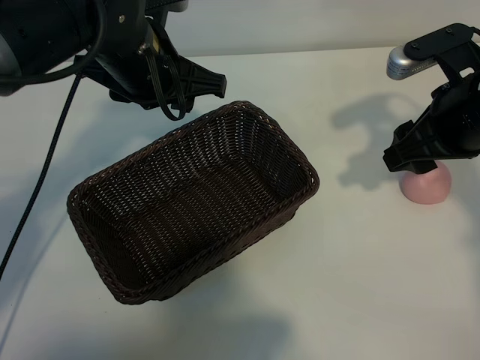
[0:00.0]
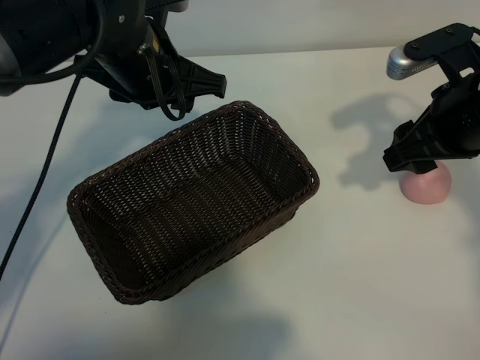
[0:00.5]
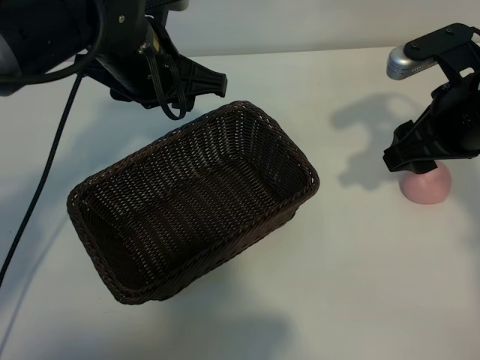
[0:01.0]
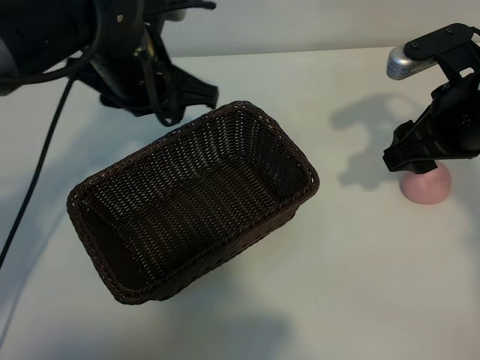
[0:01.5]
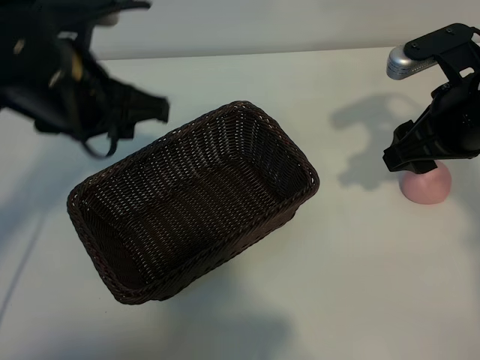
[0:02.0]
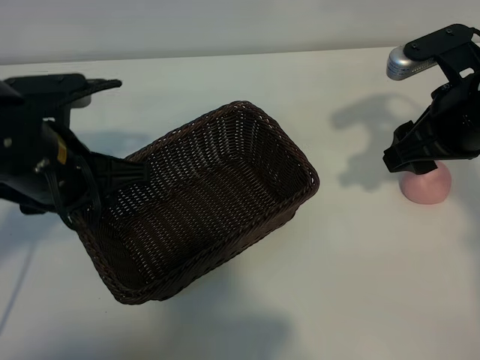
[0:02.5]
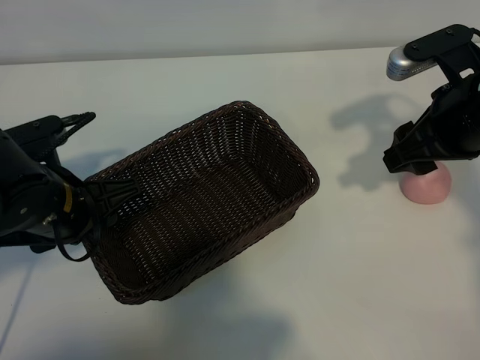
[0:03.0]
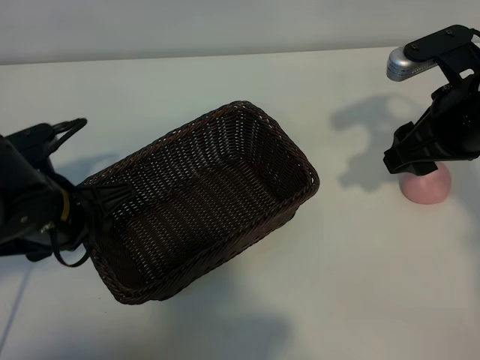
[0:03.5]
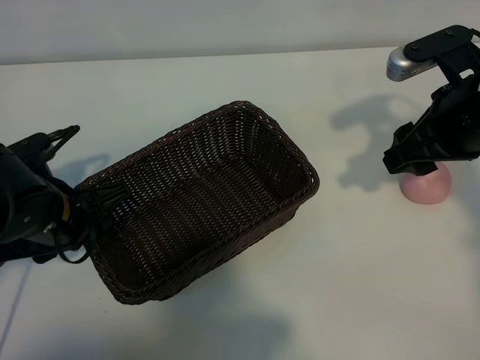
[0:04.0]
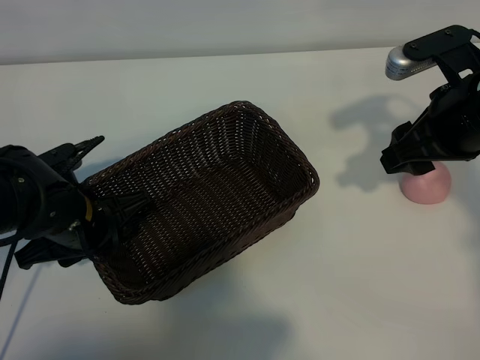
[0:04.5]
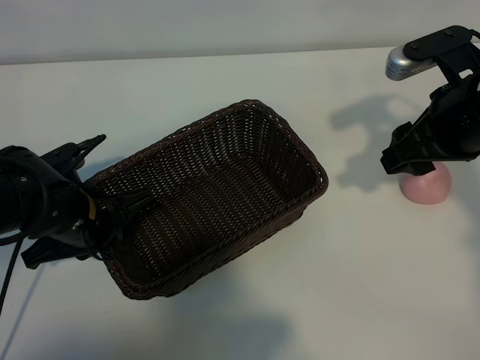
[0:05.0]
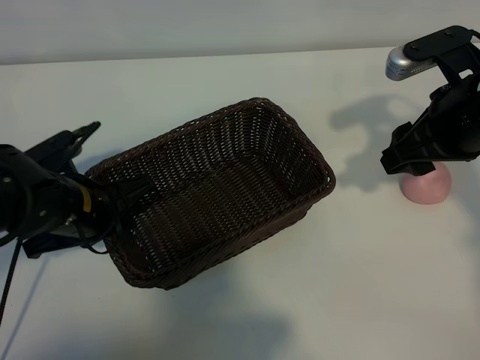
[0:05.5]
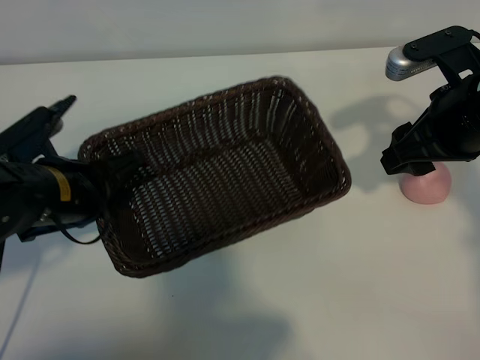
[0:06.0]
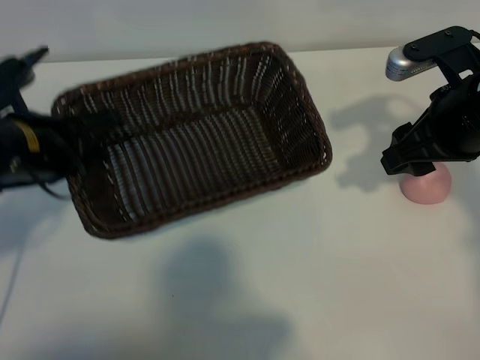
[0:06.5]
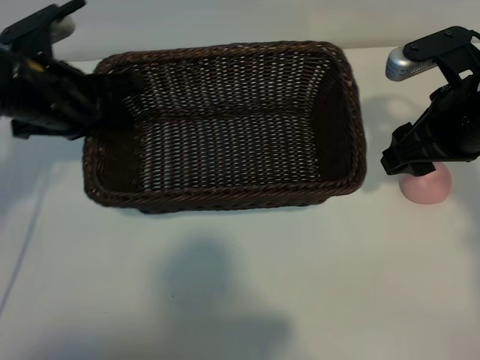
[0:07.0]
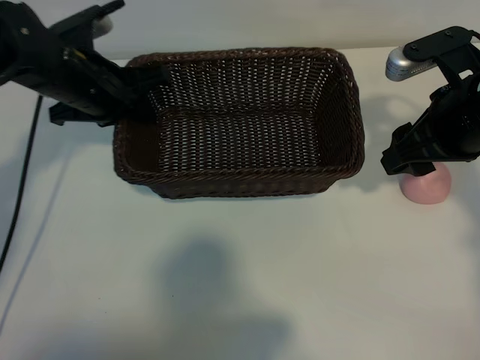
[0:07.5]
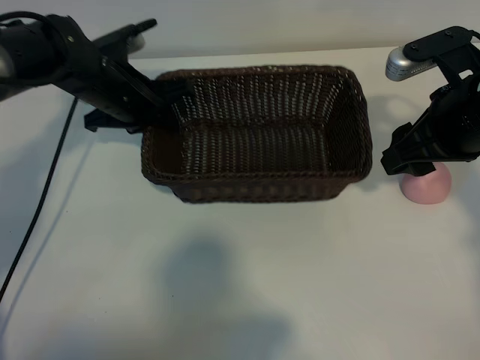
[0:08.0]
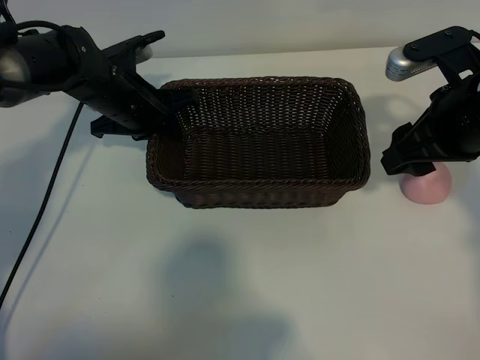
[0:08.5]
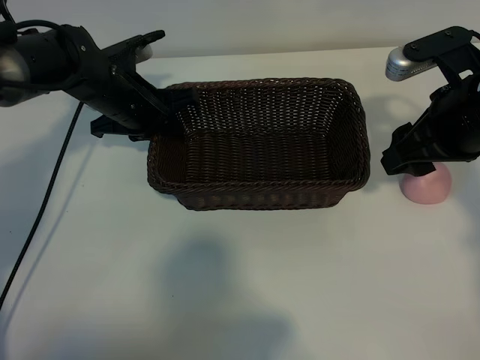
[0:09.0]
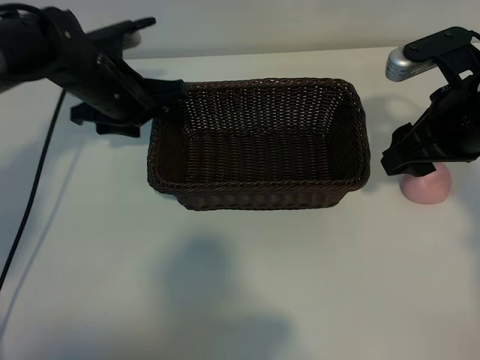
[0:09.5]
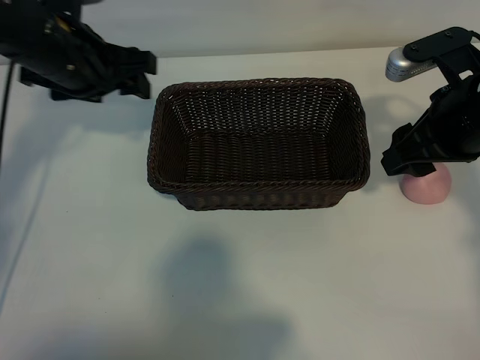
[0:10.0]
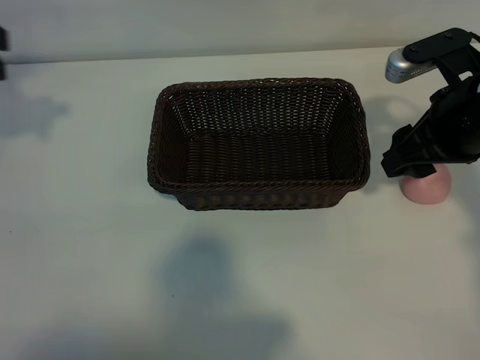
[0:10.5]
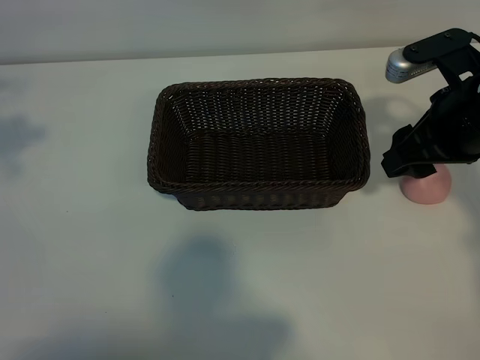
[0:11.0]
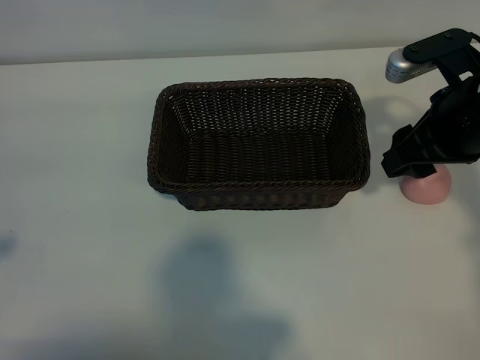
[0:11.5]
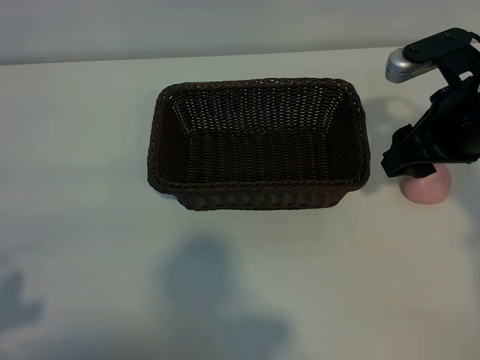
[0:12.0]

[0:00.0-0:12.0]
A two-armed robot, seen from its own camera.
Task of the whole recording: pick up the peach and put it into the basket.
Step, 0:01.5 to 0:05.0: Grasp the basket with left gripper.
Step, 0:05.5 to 0:09.0: Place the basket in the center of view with left gripper.

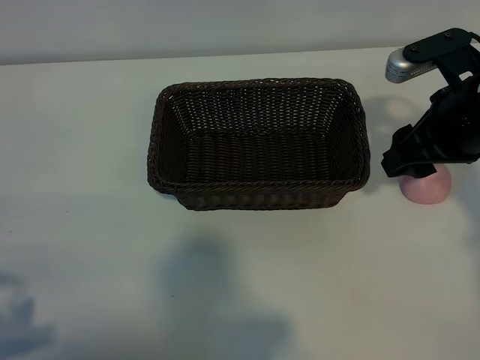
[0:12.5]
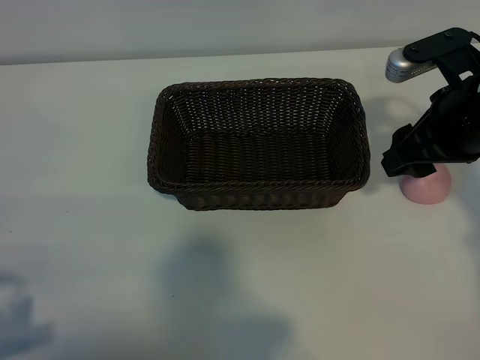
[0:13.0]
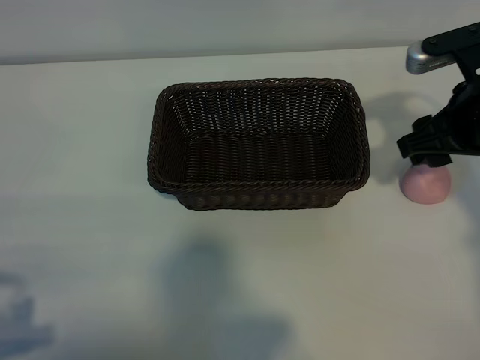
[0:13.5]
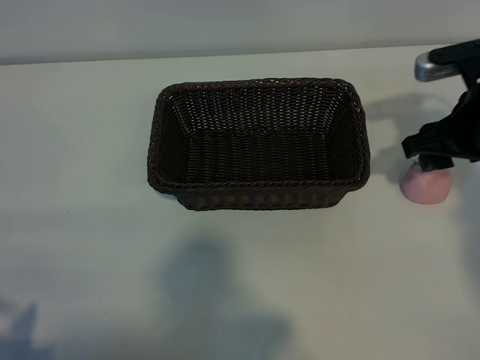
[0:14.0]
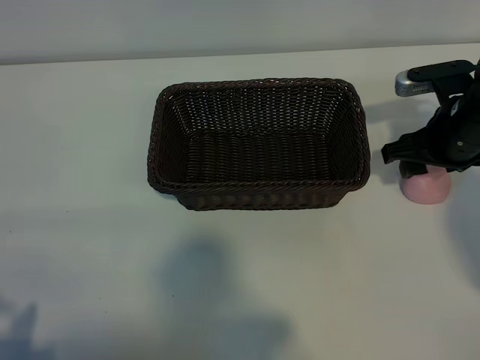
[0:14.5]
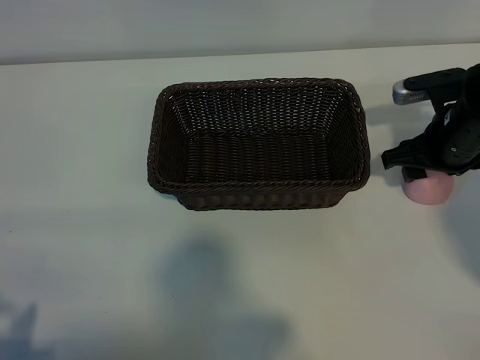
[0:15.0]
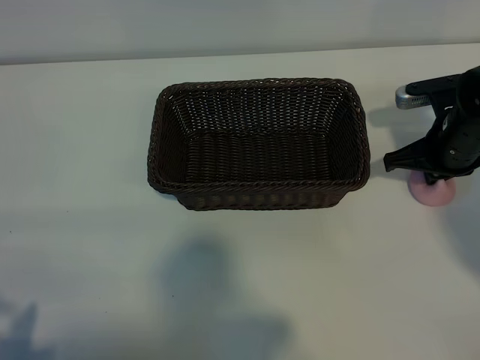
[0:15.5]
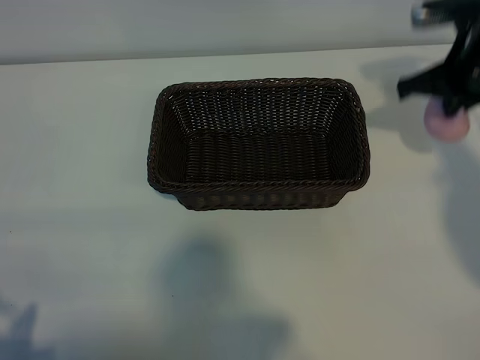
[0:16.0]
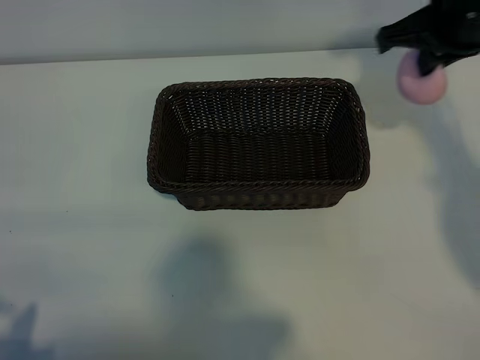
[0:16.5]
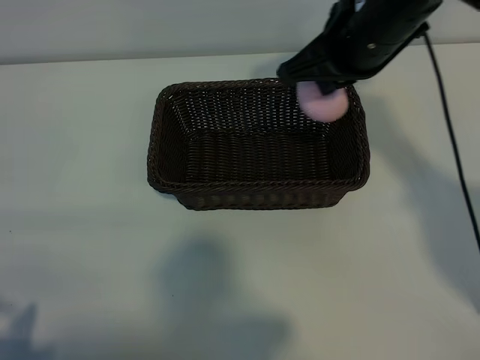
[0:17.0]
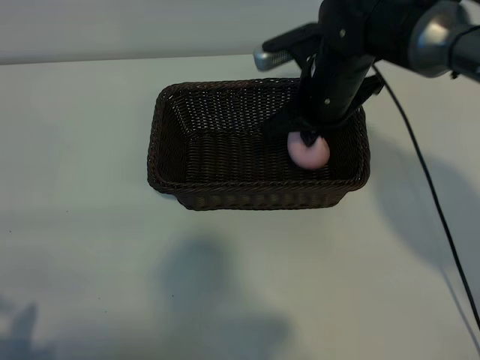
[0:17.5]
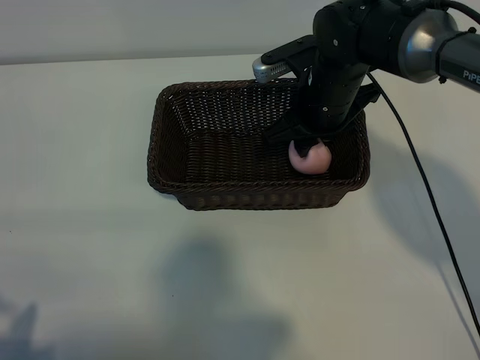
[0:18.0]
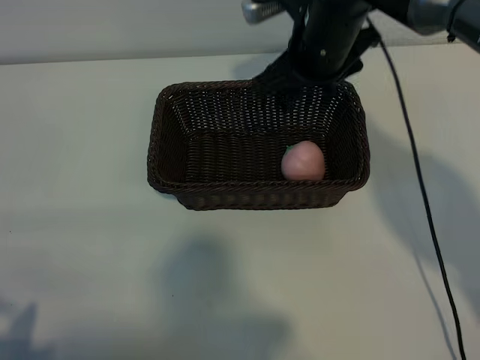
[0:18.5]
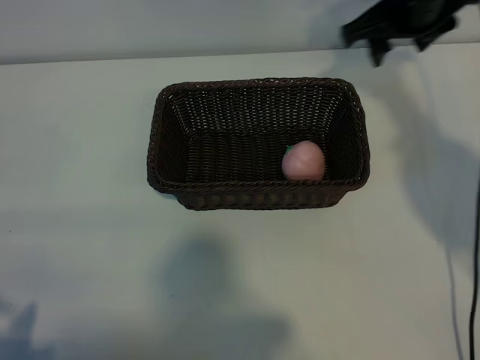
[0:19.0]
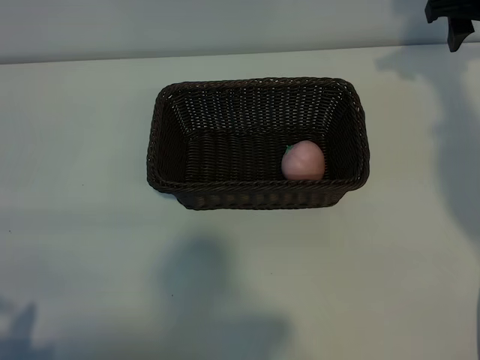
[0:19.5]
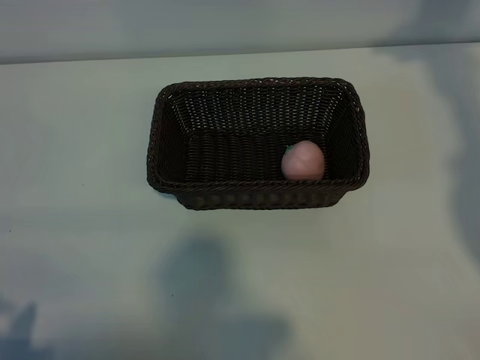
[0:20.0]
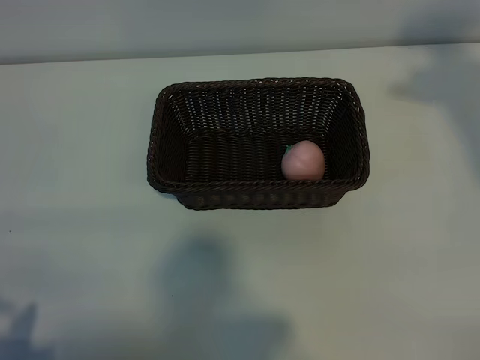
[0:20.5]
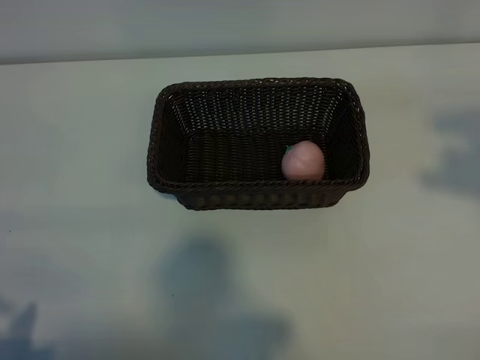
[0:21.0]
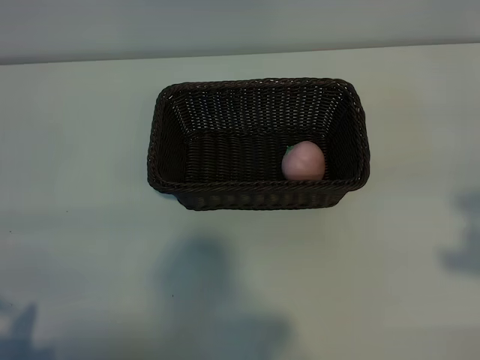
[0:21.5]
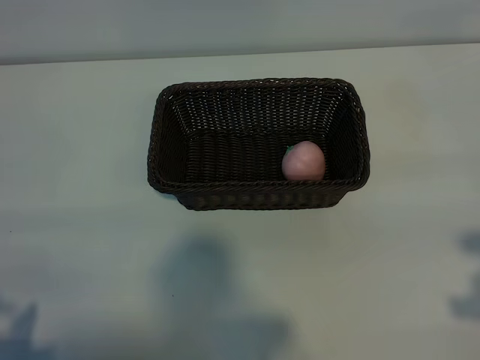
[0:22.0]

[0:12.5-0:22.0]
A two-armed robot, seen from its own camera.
Task of the whole recording: pick up the peach and put it into the basket.
Step, 0:12.5 to 0:15.0: Grasp the peach with right gripper.
Step, 0:16.0 to 0:18.0: Place the peach in the basket with right gripper.

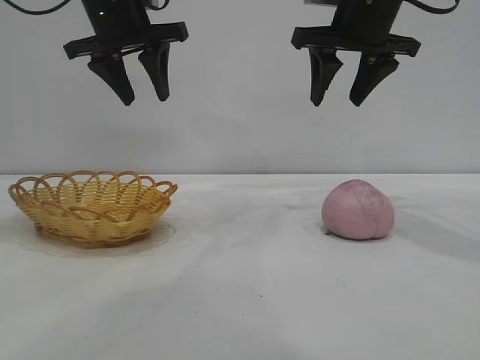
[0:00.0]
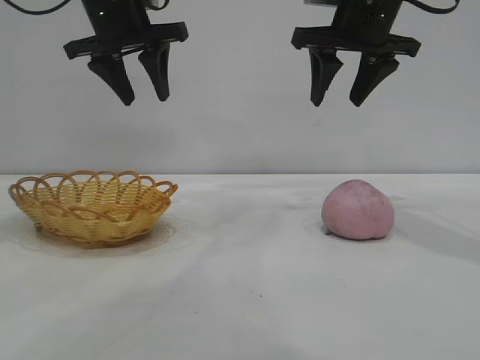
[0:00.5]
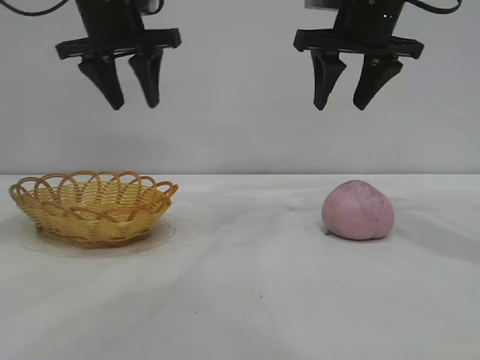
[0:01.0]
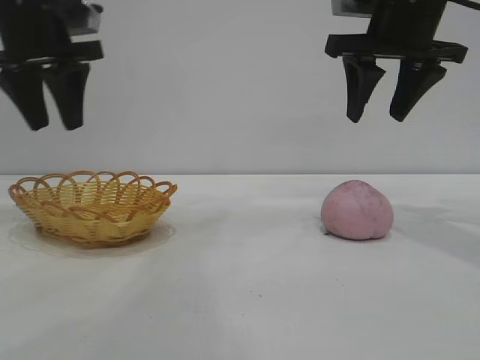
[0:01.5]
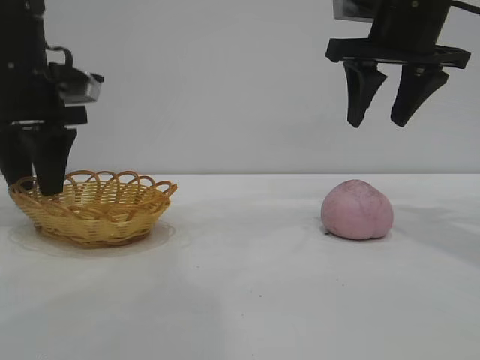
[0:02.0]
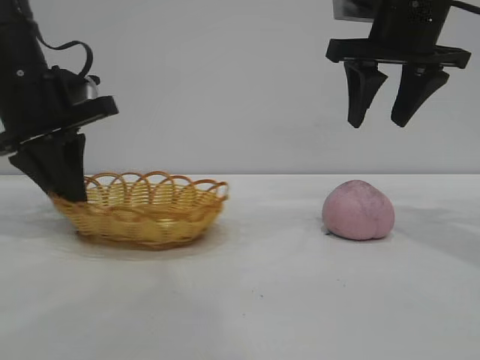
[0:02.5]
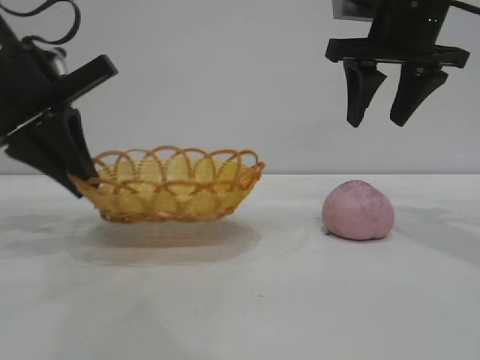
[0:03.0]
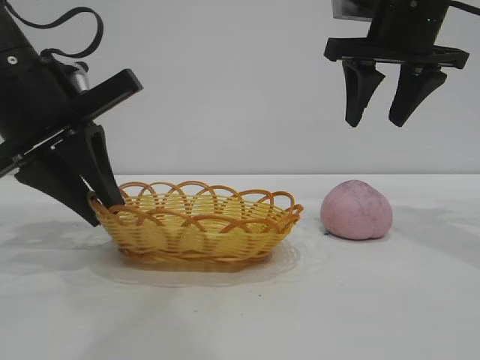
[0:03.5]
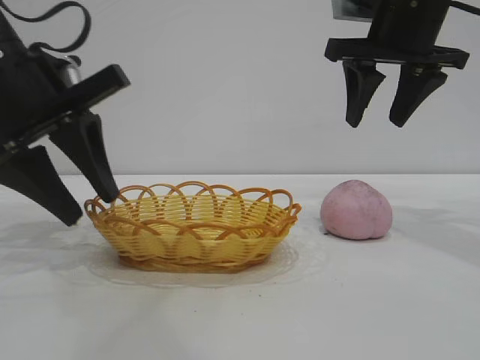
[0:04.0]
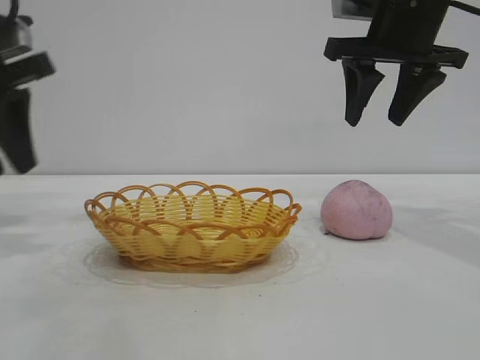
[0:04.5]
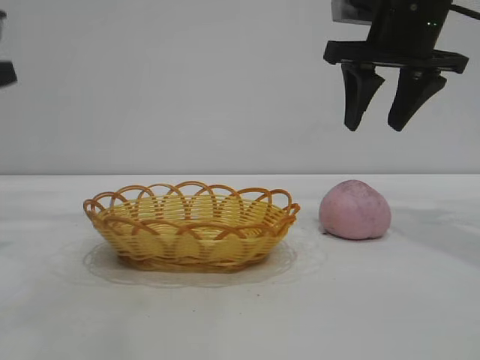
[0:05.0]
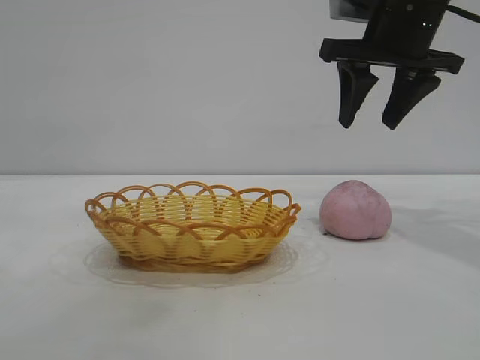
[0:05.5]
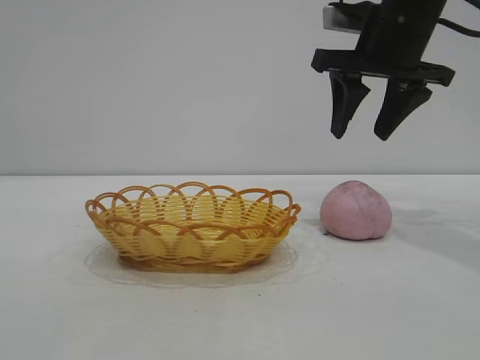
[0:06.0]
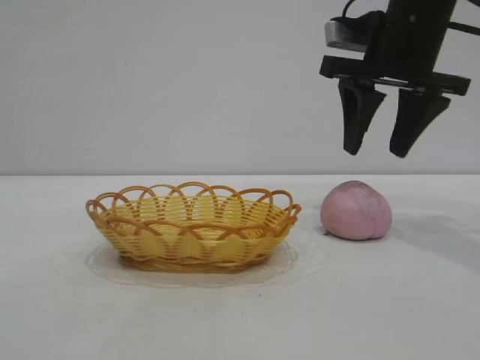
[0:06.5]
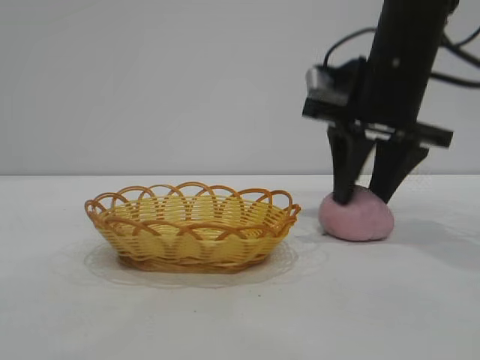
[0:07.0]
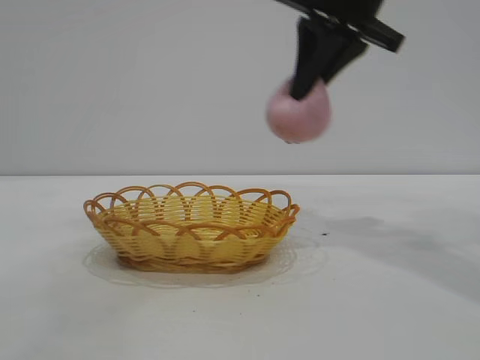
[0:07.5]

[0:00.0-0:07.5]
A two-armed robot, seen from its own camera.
Task of the whole recording: pick up the peach and put it into the basket.
Step, 0:00.0 to 0:04.0: Move the basket to the center of view.
Step, 0:04.5 to 0:07.0: Pick up the peach.
